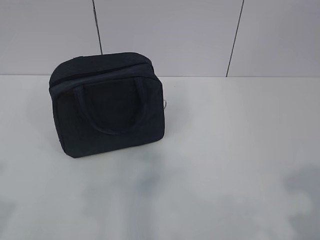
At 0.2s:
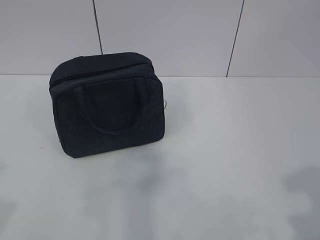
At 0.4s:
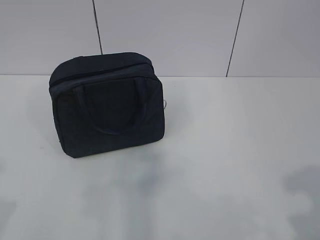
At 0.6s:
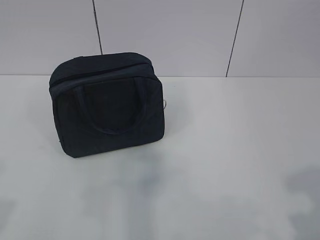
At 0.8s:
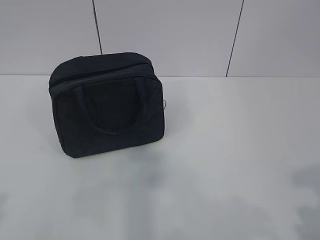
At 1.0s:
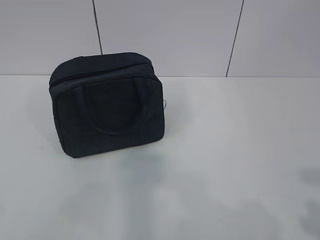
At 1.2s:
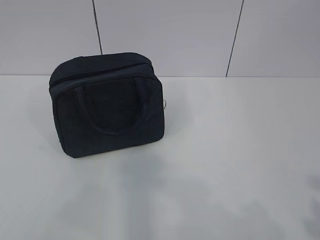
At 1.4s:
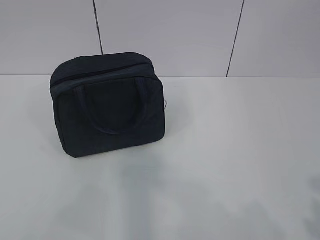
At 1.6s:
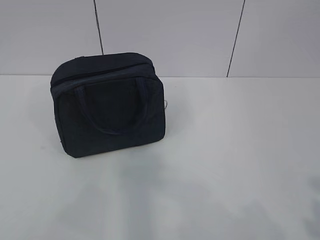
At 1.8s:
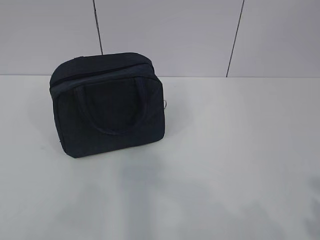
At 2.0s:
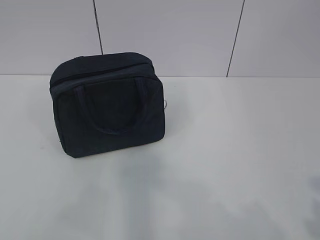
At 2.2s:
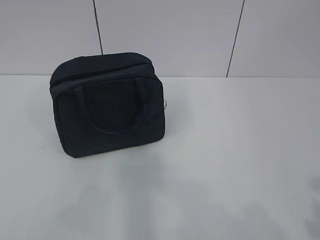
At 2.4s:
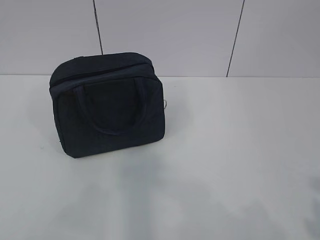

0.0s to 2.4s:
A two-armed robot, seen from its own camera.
1.2s to 2.4s: Both grippers stay put.

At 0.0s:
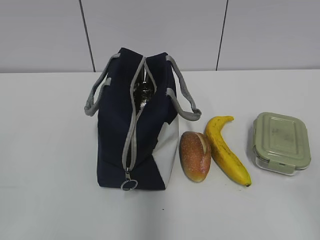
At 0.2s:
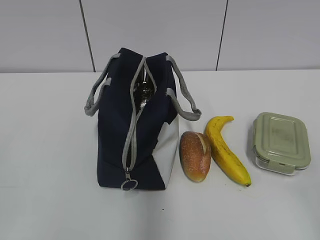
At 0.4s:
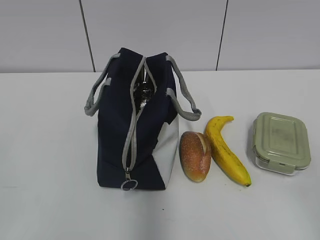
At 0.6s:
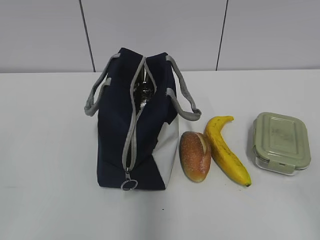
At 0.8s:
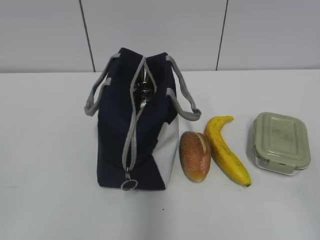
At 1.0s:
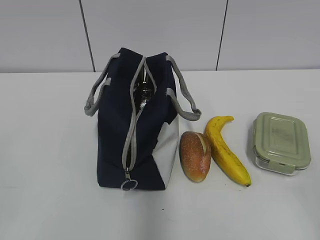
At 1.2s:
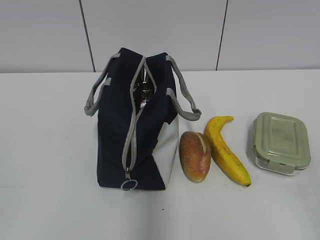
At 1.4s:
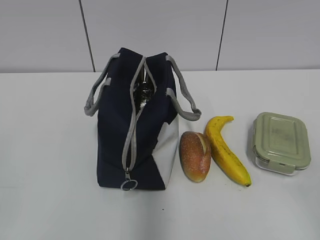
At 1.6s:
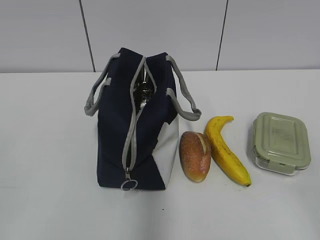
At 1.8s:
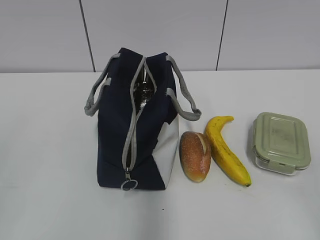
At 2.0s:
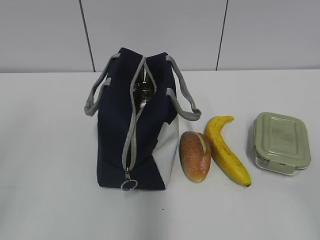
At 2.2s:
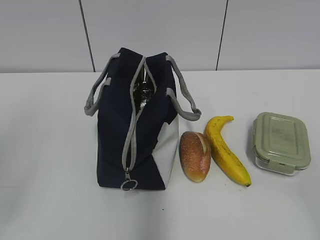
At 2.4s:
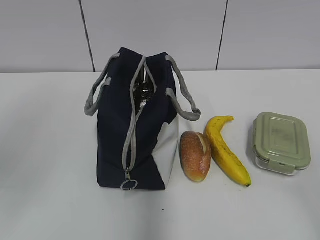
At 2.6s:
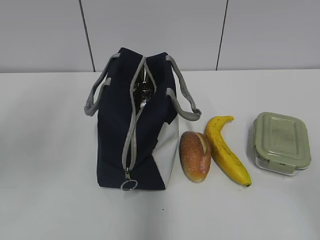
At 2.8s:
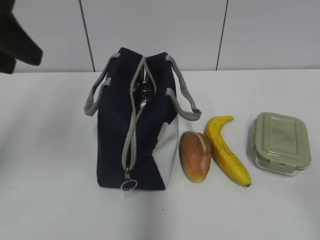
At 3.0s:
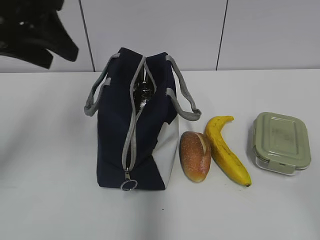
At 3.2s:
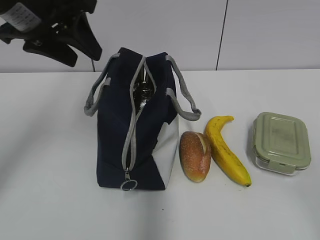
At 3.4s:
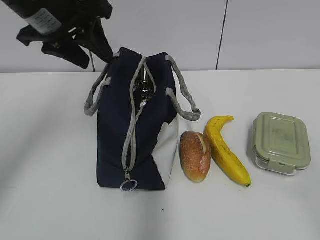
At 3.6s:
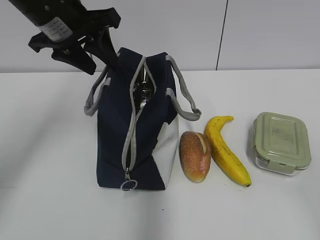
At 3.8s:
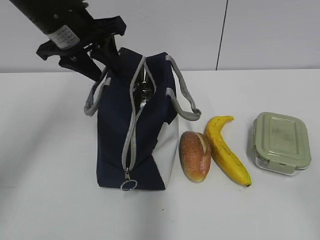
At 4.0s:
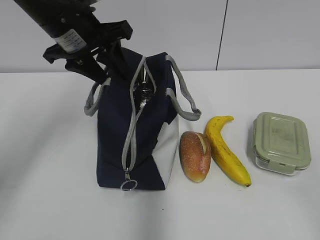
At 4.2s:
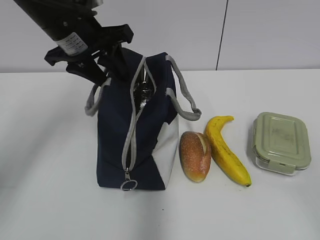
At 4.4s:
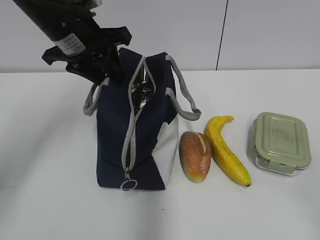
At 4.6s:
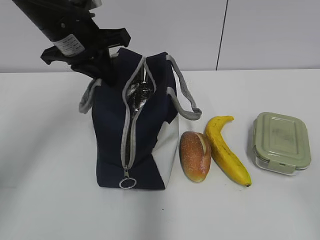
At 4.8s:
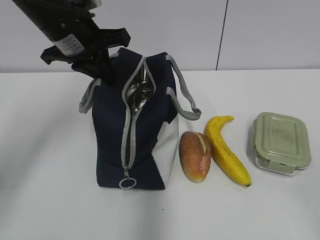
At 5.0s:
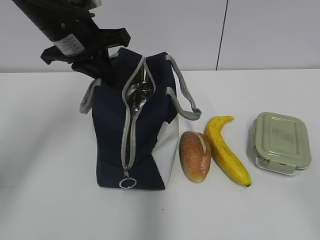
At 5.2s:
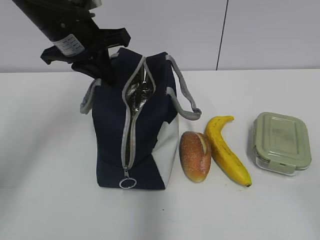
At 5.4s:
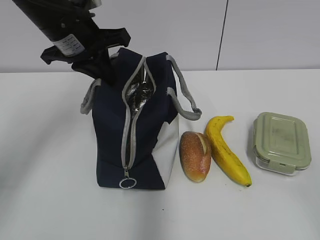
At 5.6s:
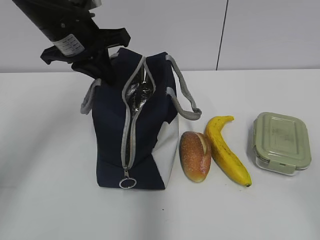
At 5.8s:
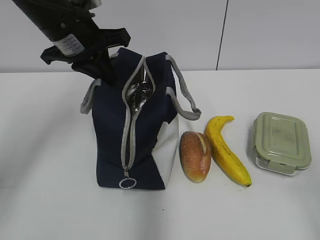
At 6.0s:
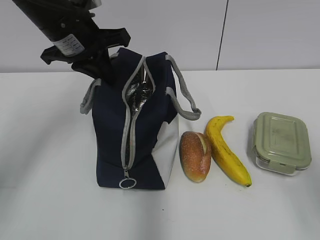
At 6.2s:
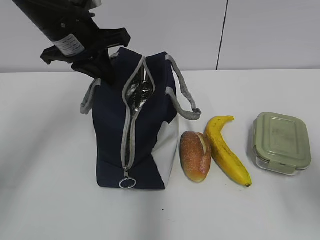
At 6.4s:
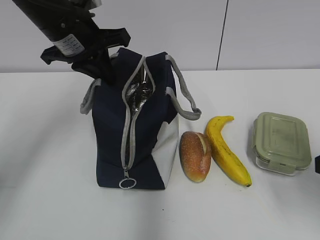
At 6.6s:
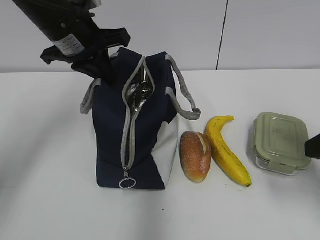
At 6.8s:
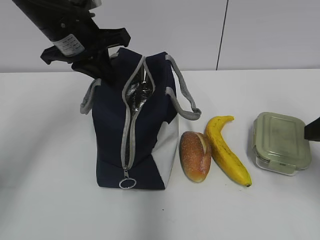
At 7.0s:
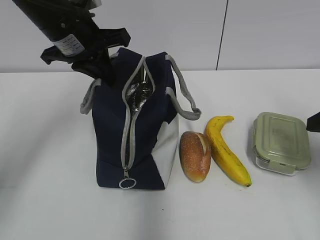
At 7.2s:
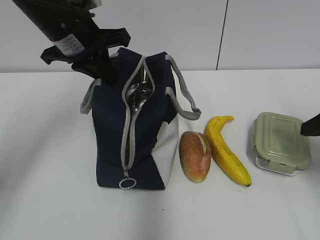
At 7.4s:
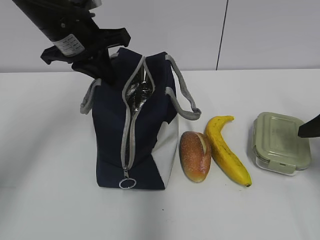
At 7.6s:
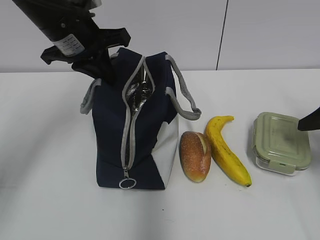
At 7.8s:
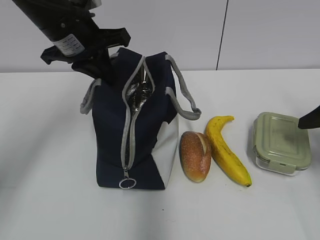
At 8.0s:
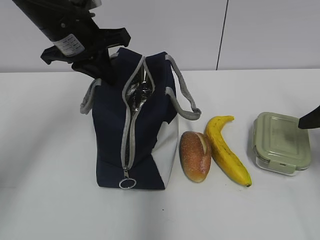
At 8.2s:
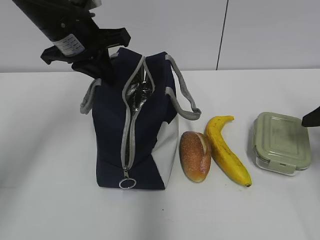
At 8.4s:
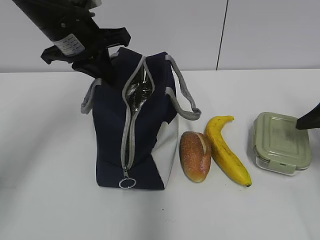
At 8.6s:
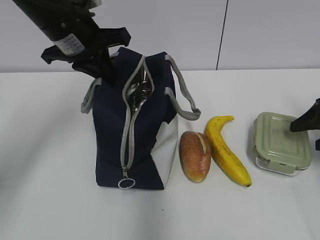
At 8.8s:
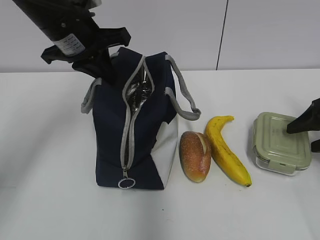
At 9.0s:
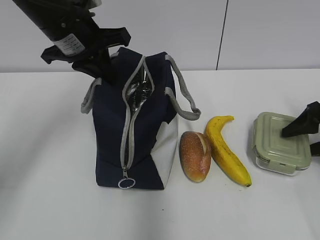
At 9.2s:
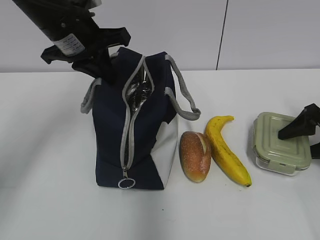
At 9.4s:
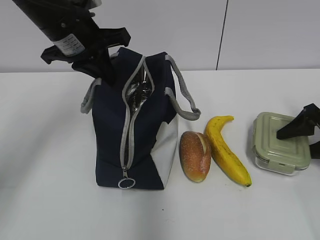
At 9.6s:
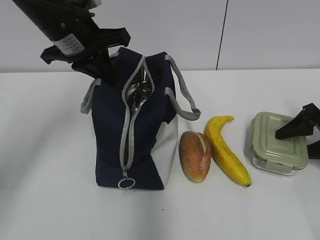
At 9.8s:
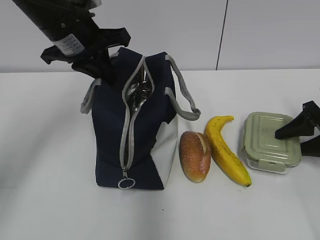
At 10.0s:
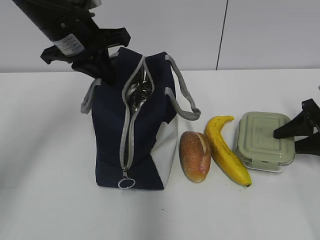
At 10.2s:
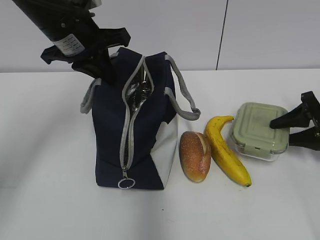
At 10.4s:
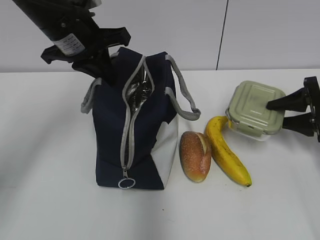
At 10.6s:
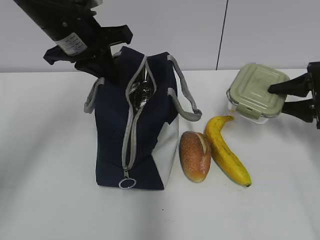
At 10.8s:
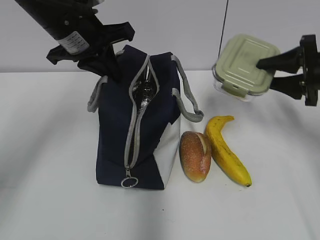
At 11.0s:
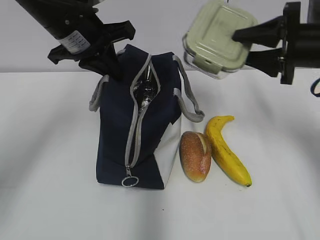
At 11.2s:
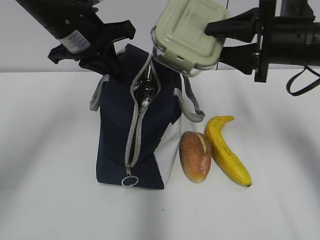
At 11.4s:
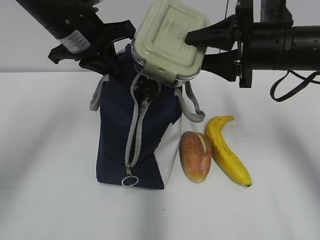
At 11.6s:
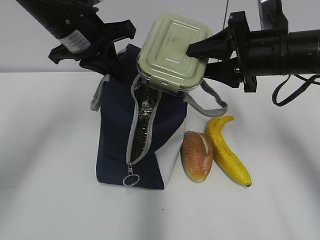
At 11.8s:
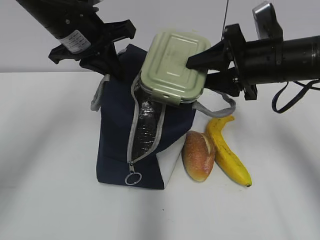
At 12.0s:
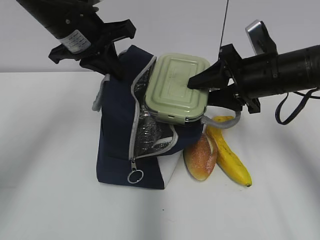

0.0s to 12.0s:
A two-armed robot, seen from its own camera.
1.6s to 3.0s: The left gripper is displaced forward and to the right by about 30 cm.
3.0s to 4.4s: The left gripper moves forward, downward and to the right, about 15 cm.
4.4s to 6.0s: The right gripper shifts about 10 cm forward. The left gripper closes up.
6.0s to 7.6s: The right gripper heads forward and downward, covering approximately 20 cm.
7.6s to 9.0s: The right gripper is displaced downward and forward by some 10 cm.
9.0s to 10.4s: The right gripper closes.
10.4s to 12.0s: The right gripper goes some 20 cm to the left and upward.

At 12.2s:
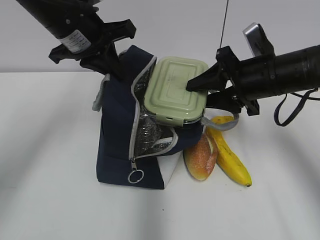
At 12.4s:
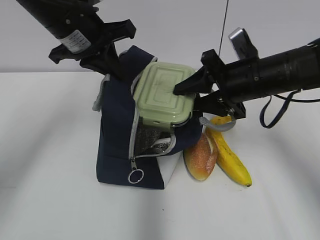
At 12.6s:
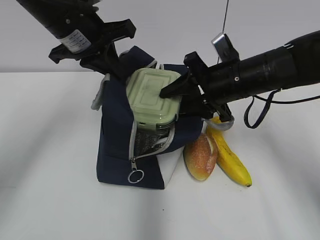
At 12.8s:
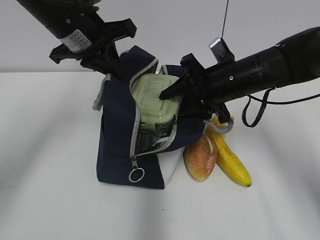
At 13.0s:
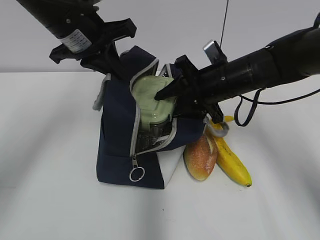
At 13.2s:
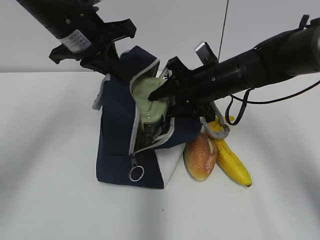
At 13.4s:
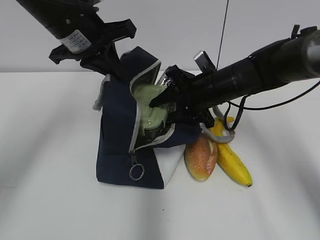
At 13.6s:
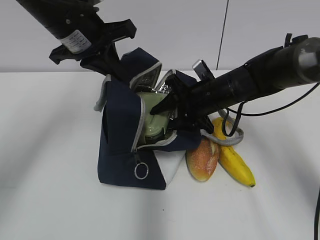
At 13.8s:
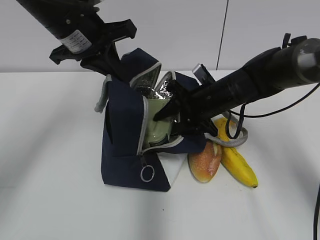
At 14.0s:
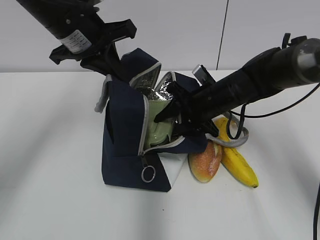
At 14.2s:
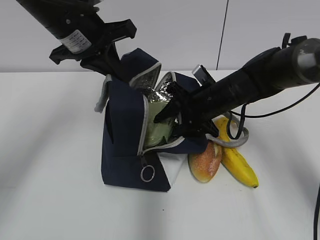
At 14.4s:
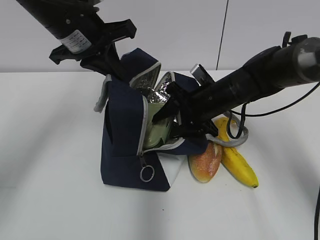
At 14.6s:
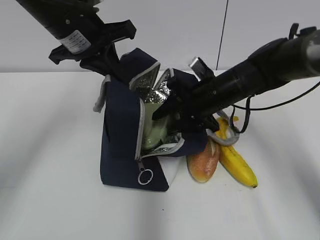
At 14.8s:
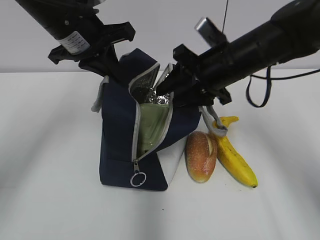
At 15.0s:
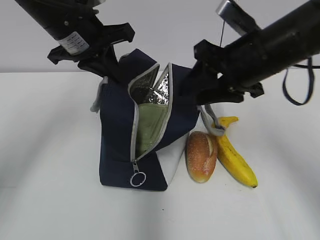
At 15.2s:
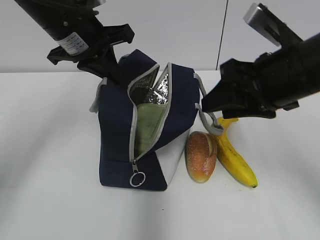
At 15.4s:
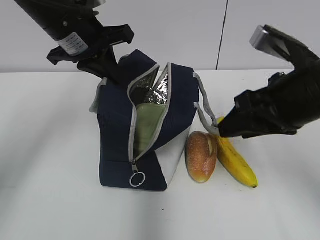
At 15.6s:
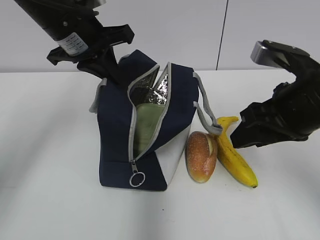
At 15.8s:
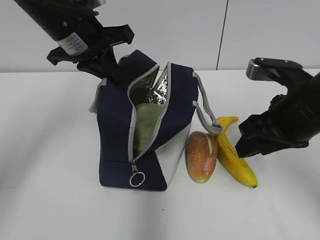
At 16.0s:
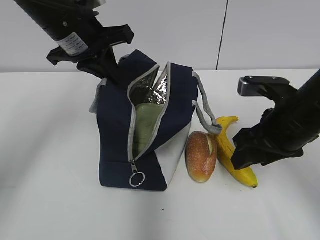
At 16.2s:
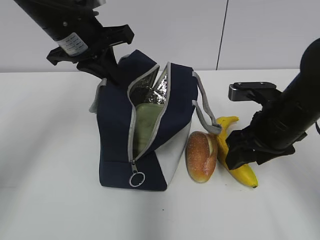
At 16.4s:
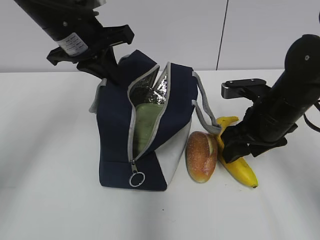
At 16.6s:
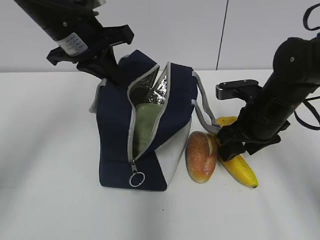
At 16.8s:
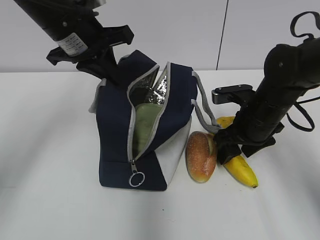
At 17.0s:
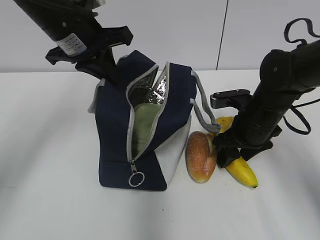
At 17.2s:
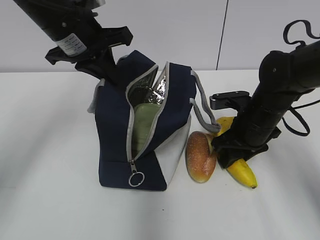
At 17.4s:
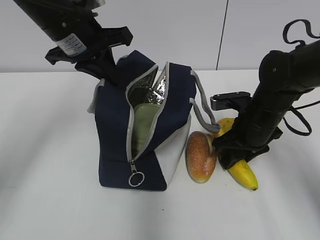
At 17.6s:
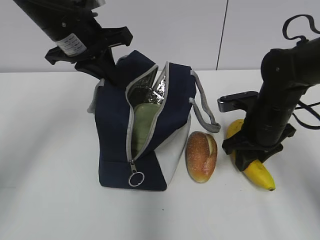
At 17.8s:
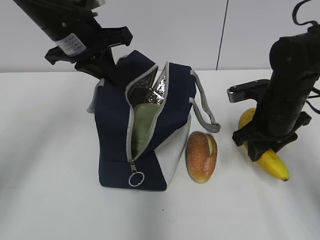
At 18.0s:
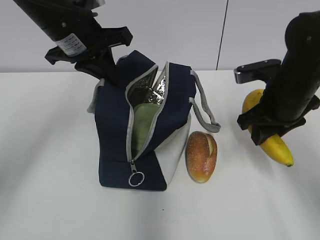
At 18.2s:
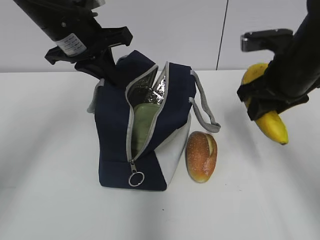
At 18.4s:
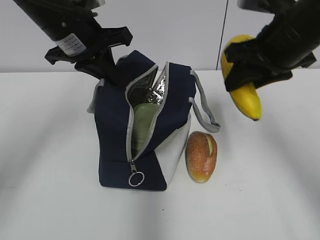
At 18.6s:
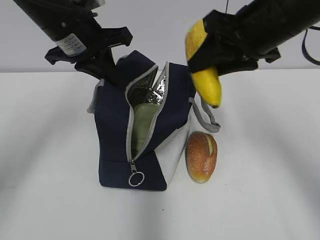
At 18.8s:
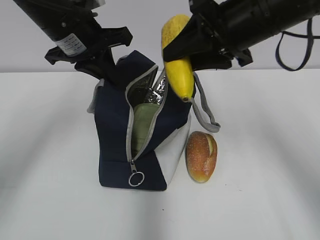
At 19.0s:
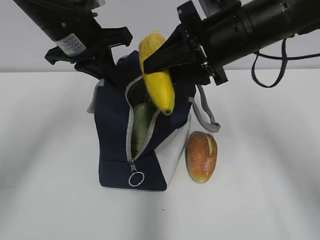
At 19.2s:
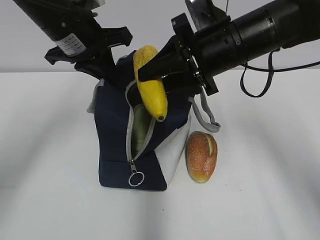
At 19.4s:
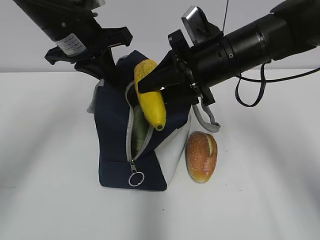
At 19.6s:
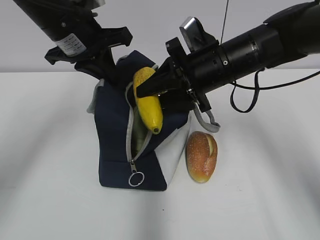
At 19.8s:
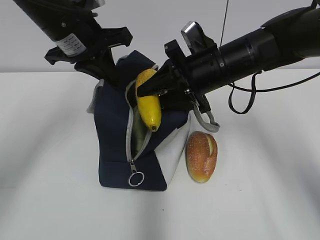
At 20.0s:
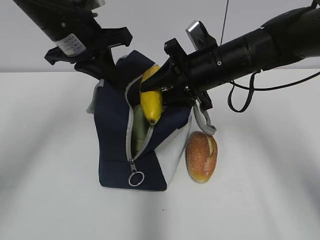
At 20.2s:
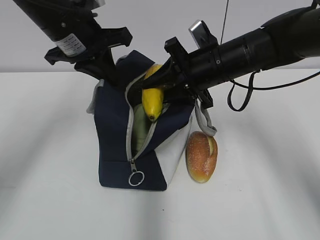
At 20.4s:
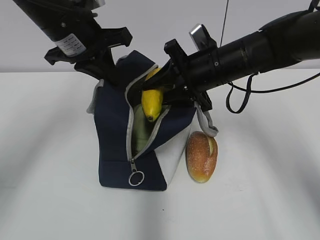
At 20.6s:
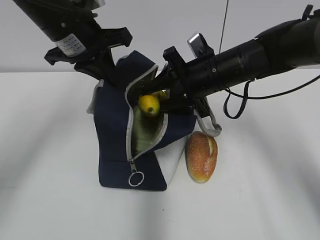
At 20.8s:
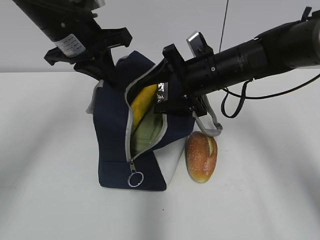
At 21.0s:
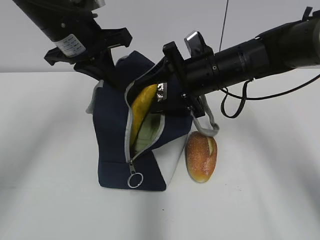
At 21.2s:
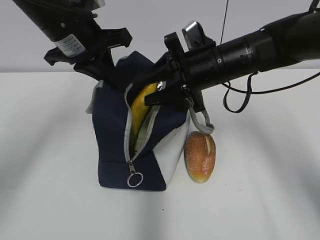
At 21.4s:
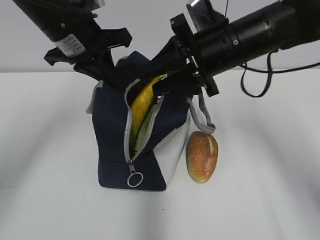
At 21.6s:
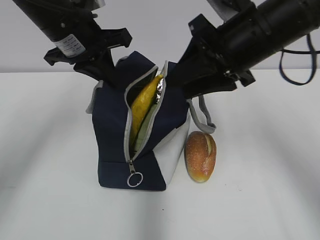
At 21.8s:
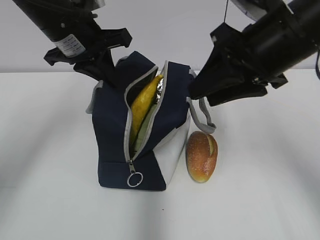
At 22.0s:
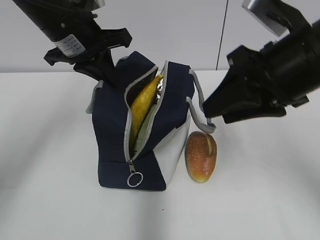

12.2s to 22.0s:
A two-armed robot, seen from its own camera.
12.2s to 13.6s: The right gripper is displaced downward, to the left and forward by about 10 cm.
13.6s to 15.0s: The right gripper travels upward and backward by about 15 cm.
15.0s to 16.4s: The right gripper goes about 10 cm downward.
16.4s to 17.8s: There are only small adjustments of the grippers.
17.8s to 19.2s: The right gripper goes approximately 15 cm upward and to the left.
19.2s to 20.6s: The right gripper goes some 5 cm downward.
20.6s to 22.0s: The right gripper is displaced backward, upward and to the right by about 15 cm.
